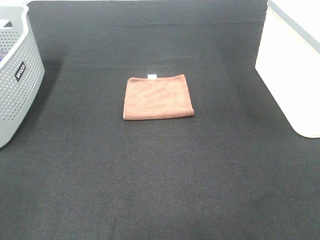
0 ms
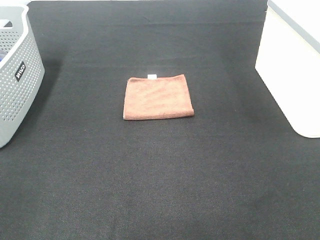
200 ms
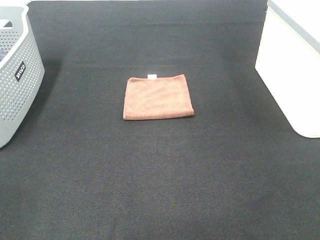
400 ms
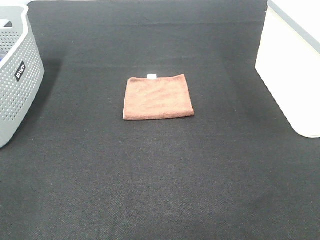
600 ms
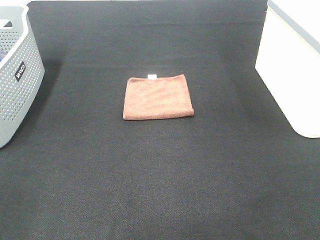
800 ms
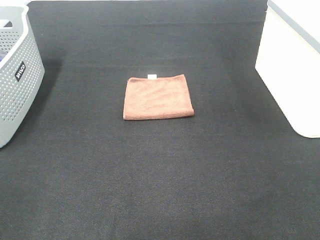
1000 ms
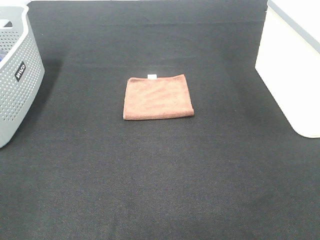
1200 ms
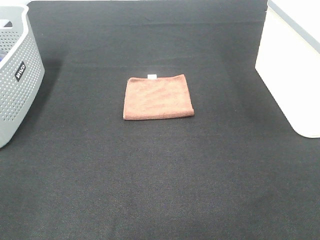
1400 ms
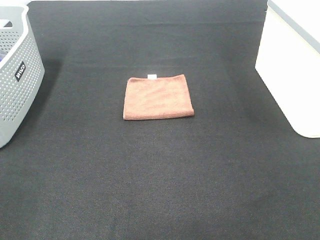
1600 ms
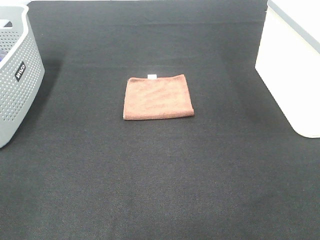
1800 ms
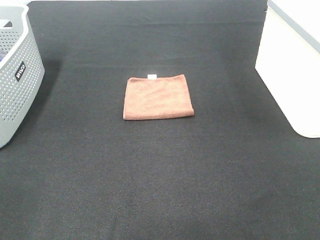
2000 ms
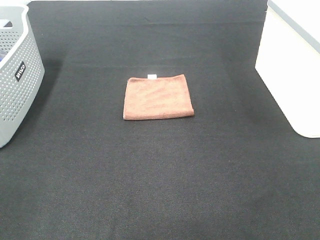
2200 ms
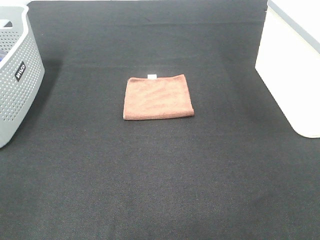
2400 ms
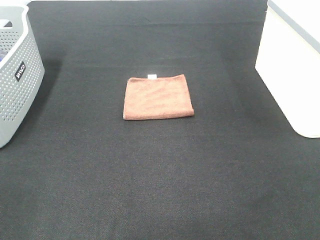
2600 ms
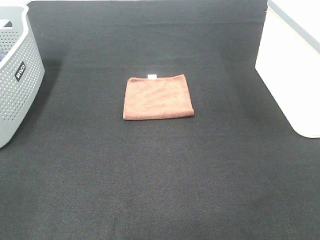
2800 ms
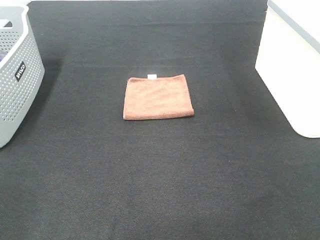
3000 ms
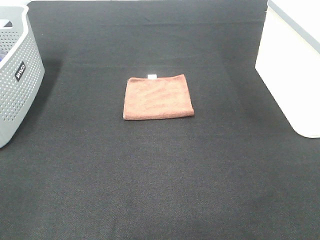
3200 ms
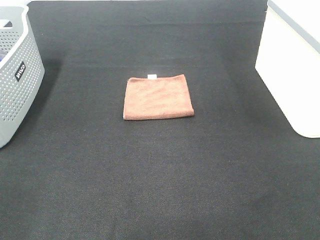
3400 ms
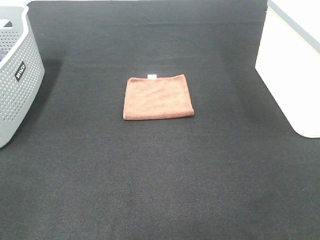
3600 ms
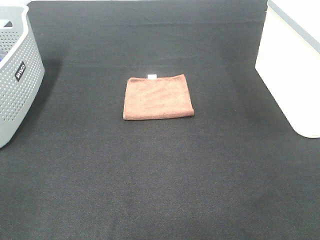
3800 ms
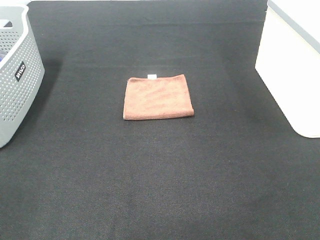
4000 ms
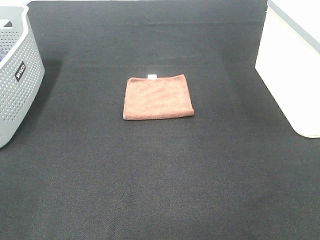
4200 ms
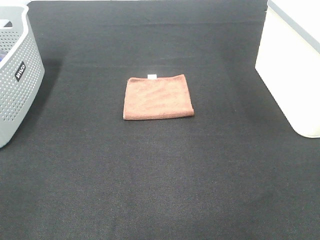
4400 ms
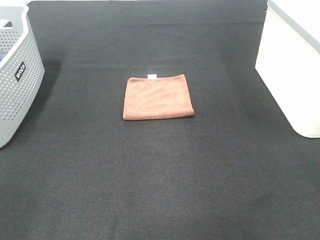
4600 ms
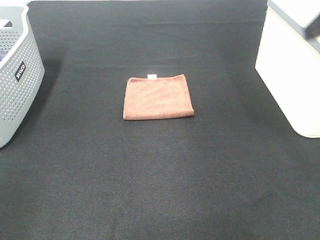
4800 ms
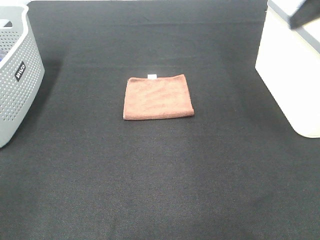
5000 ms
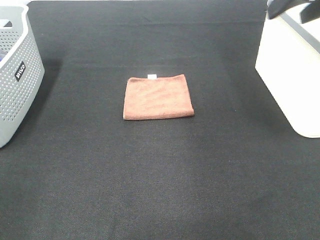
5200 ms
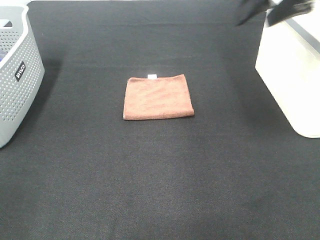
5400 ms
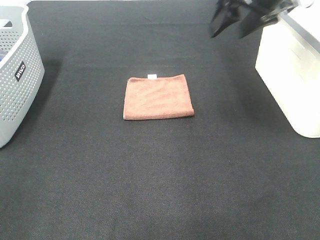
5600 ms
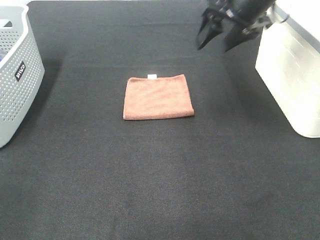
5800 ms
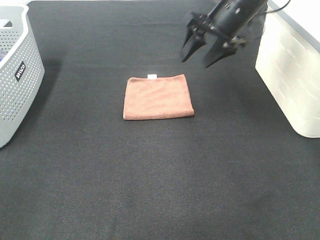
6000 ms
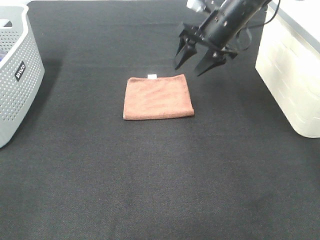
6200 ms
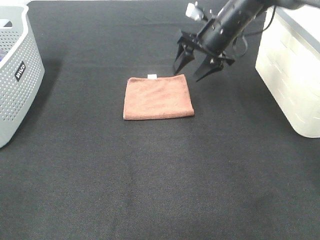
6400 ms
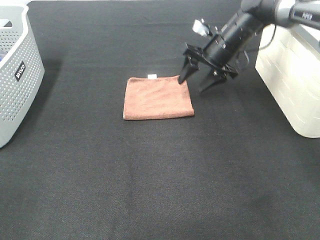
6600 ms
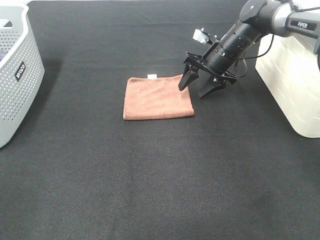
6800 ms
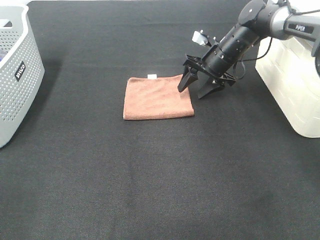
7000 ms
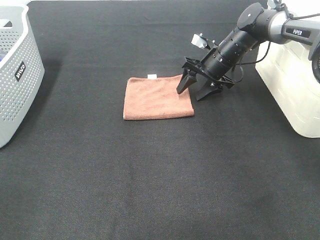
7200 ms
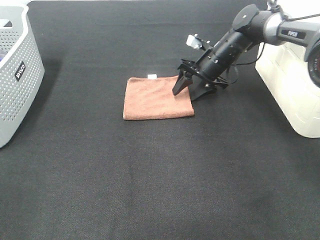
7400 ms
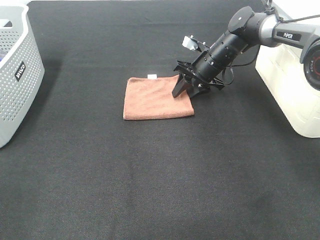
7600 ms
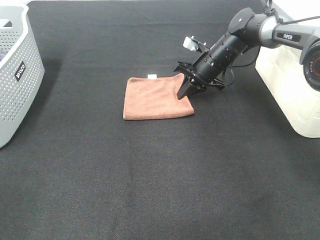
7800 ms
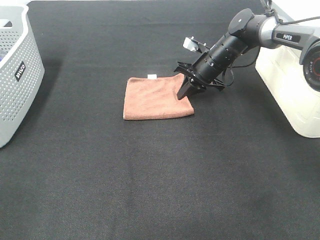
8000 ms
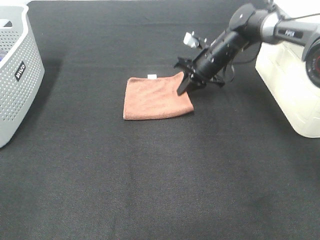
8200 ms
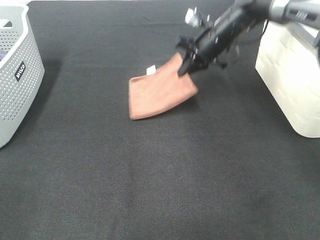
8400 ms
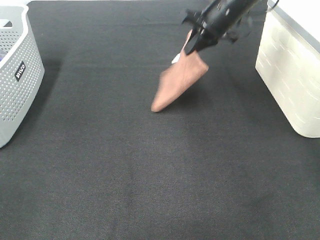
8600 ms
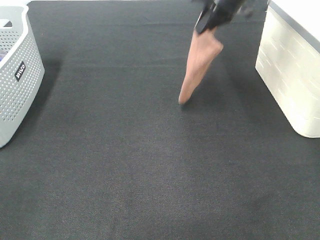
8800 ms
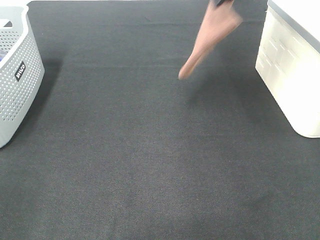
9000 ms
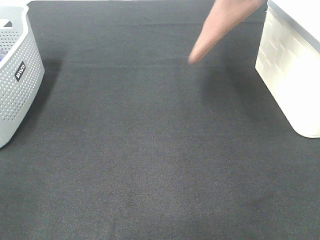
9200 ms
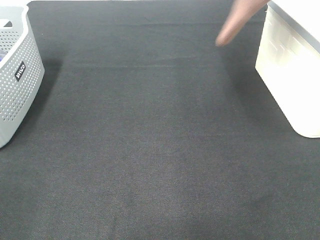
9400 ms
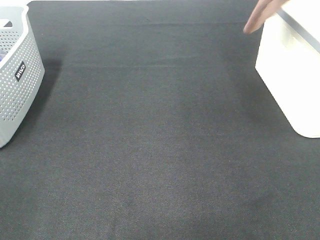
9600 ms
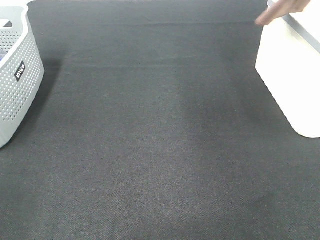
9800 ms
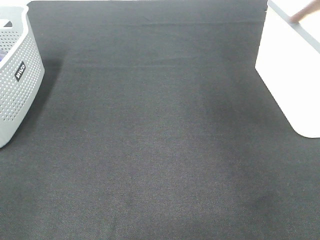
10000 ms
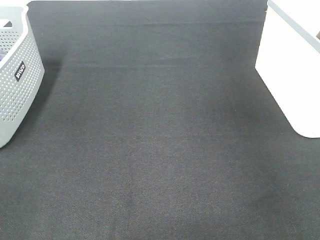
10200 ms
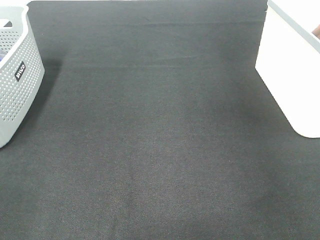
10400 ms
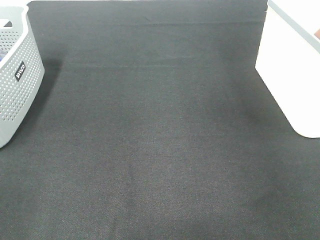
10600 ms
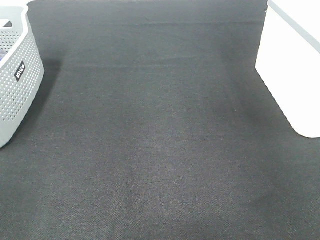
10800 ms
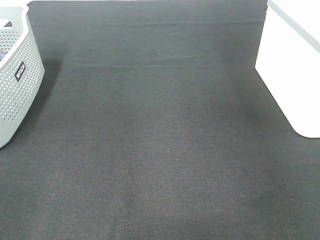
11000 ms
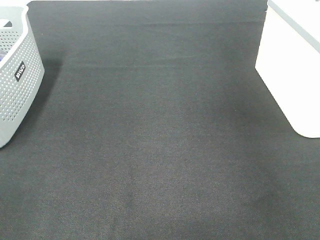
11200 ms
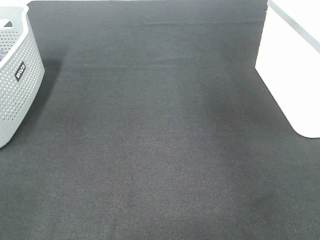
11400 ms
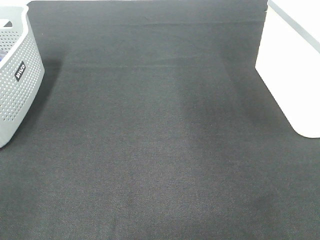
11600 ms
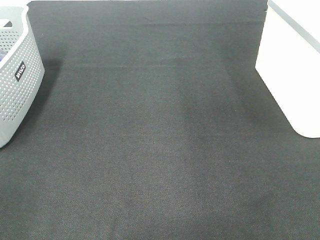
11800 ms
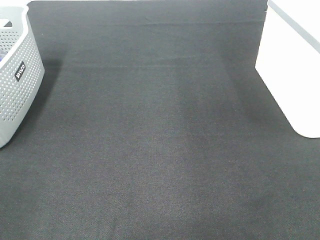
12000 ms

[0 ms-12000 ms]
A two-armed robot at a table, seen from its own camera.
Step, 0 ms to 7800 ms: Right hand: grab the folded brown towel.
Step, 8000 ms to 11200 ms: Right hand: place the brown towel in right basket.
0 ms to 3000 ms: Both grippers stay about where they are.
4400 ms to 6000 ms: The right gripper moves forward, about 35 cm.
6000 ms to 7600 ms: The right gripper heads downward and forward, covering some 15 cm, and closes its fingers.
7600 ms to 9000 ms: The right gripper moves upward, approximately 25 cm, and closes its fingers.
9000 ms to 10400 ms: The right gripper is displaced to the right by some 25 cm.

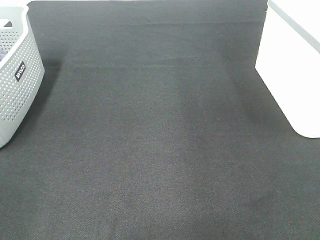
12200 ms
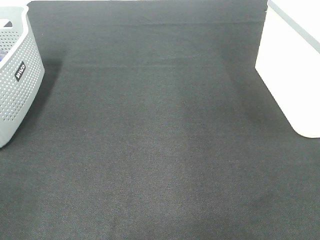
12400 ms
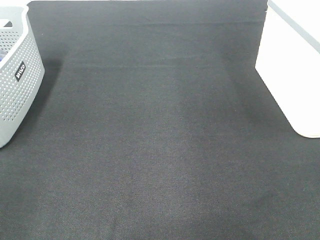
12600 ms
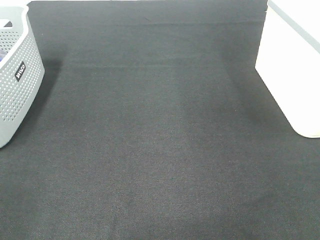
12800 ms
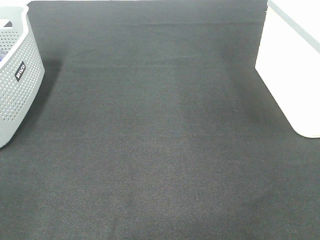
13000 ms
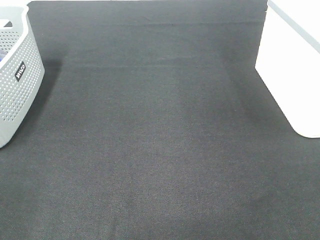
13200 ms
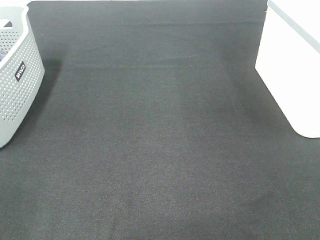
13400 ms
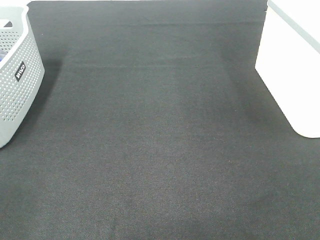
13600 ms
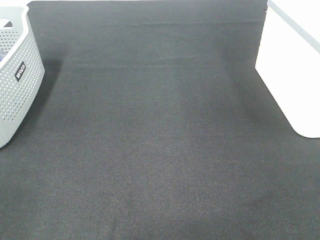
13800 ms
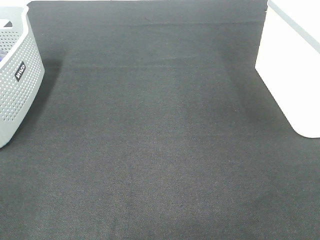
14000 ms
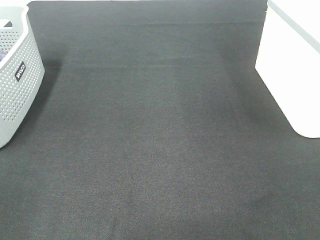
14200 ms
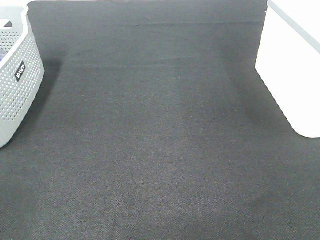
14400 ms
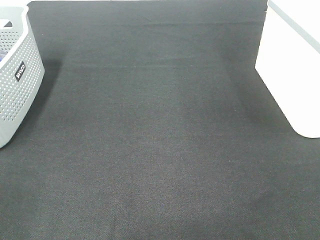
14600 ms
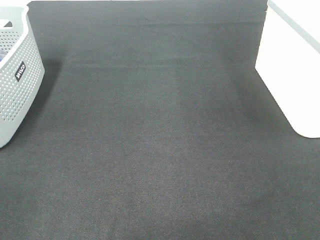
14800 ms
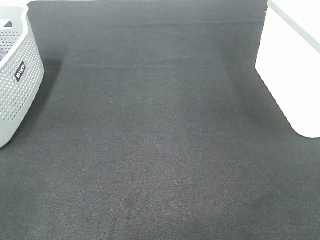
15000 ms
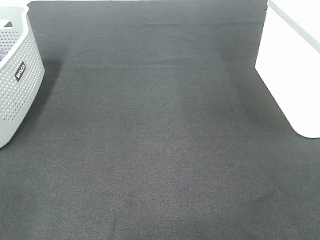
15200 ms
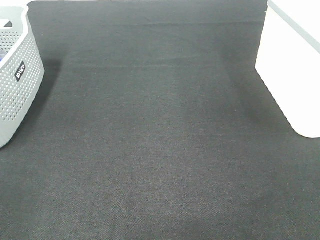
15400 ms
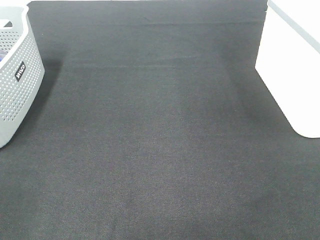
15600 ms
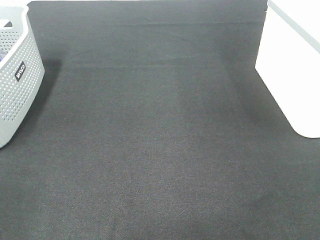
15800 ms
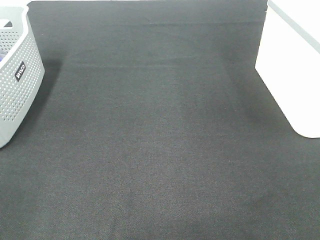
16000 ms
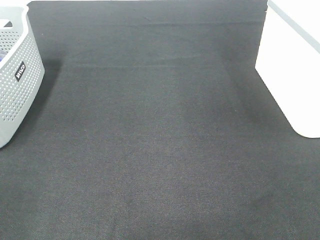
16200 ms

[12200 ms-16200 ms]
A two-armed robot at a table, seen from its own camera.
14800 ms to 16200 ms: Neither gripper changes place.

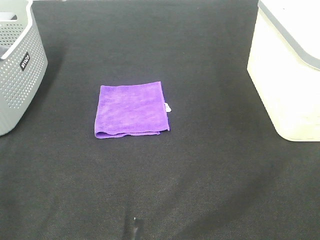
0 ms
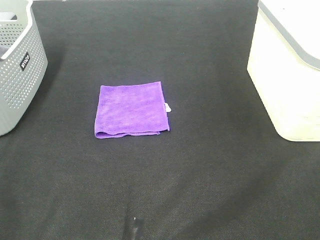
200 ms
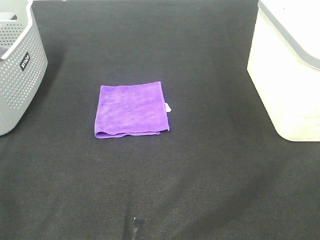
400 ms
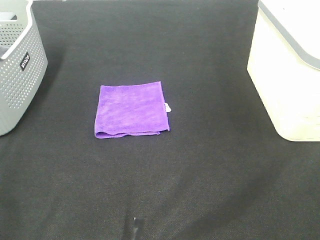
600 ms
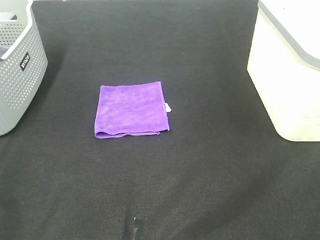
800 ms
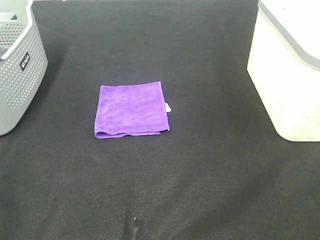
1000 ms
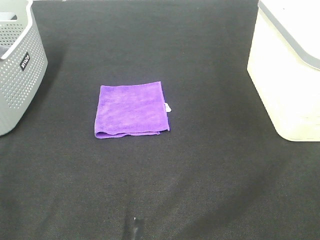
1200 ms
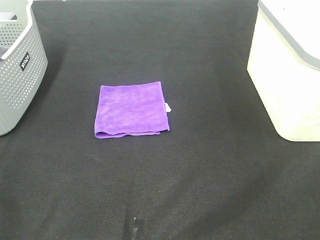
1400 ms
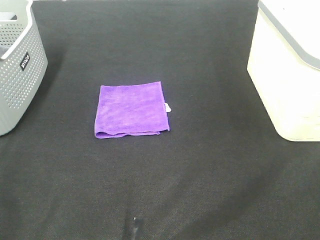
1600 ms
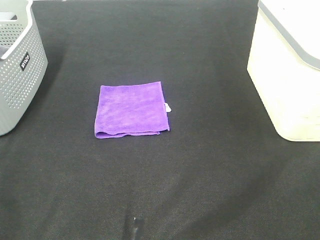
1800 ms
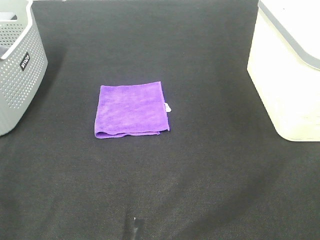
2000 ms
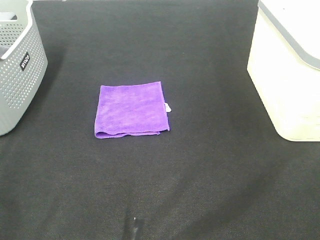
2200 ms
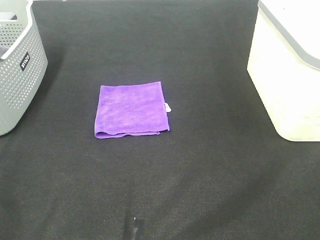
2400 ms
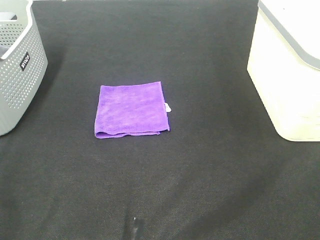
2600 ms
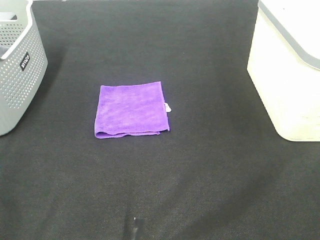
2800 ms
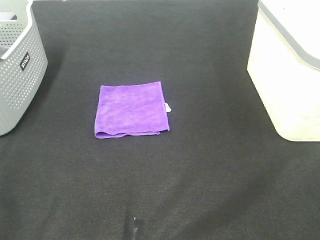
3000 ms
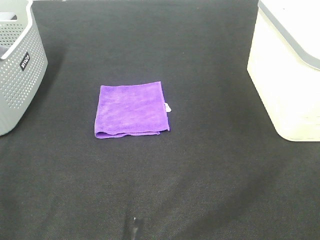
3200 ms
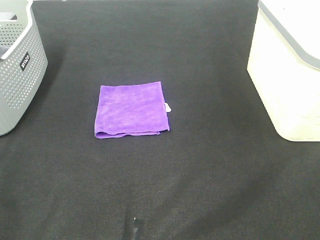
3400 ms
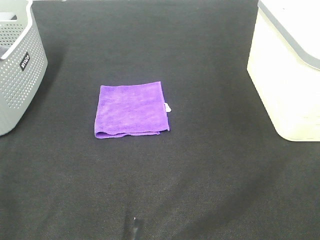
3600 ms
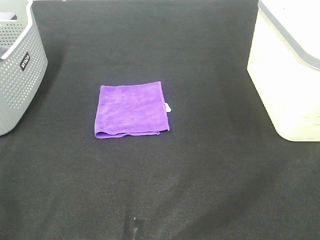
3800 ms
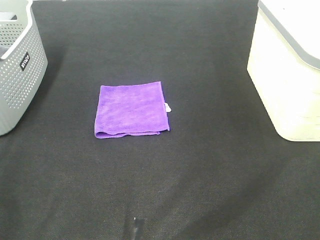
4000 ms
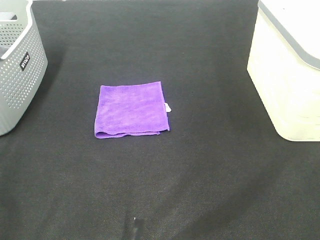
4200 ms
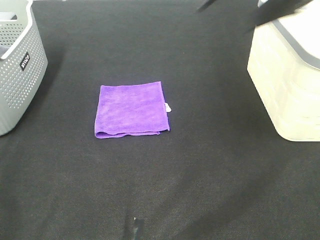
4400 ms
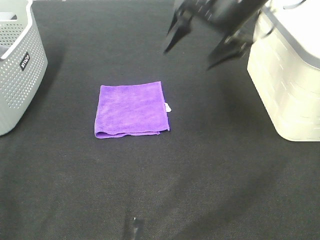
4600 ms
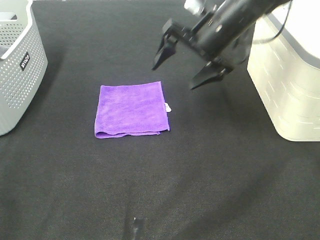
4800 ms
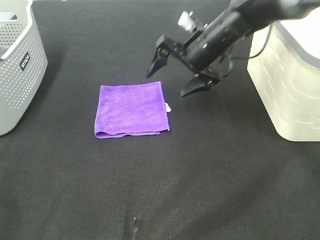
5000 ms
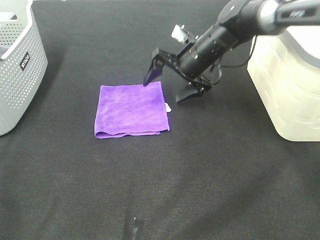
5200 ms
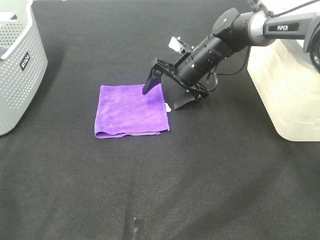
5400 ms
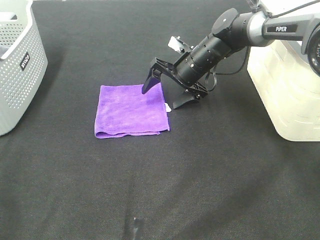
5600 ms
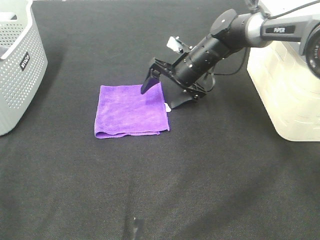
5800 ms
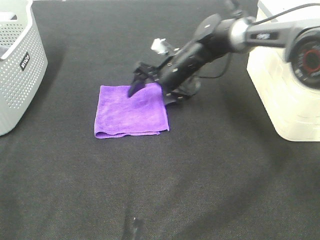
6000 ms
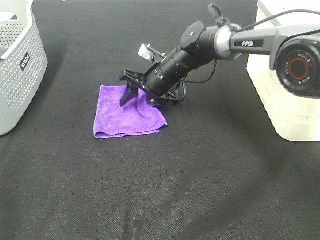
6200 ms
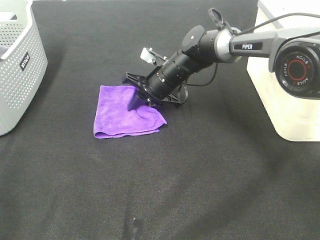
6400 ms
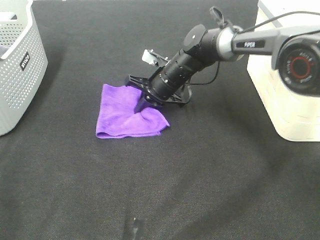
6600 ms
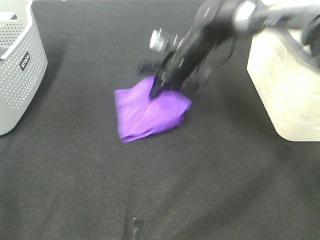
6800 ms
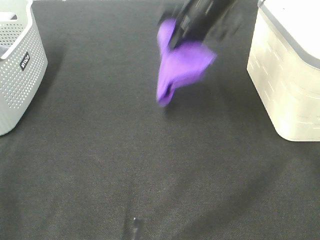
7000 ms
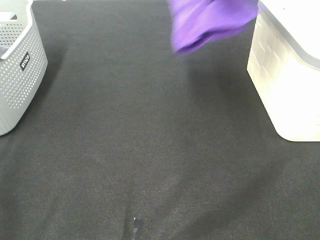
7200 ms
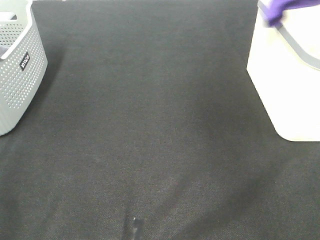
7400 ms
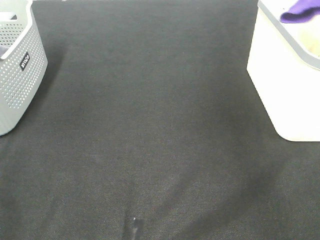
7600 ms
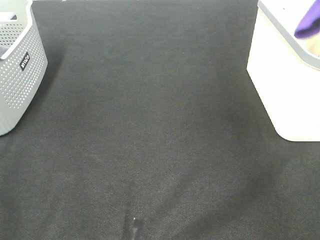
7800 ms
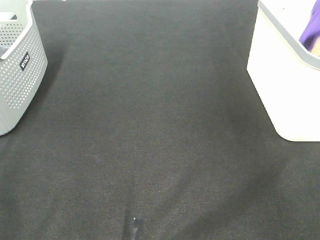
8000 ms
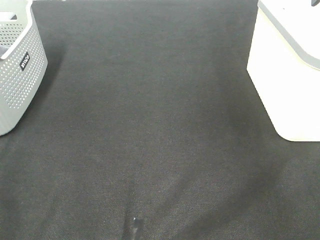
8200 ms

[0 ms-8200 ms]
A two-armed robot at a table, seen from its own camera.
Step, 0 ms to 6400 ms: Right hand: grab the folded purple towel.
Step, 6600 ms to 8200 ms: Right hand: place the purple towel in right basket.
0 ms to 3200 ms: Both grippers stay put.
3200 ms to 5000 ms: The right gripper moves forward and to the left, about 50 cm.
5000 ms to 6600 ms: The right gripper heads downward and to the left, covering roughly 10 cm, and closes.
6600 ms to 8200 ms: The right gripper heads to the right and upward, covering some 40 cm, and opens.
